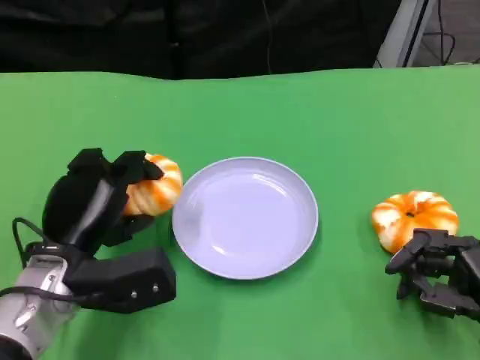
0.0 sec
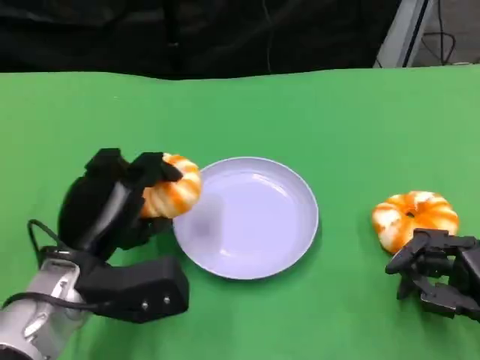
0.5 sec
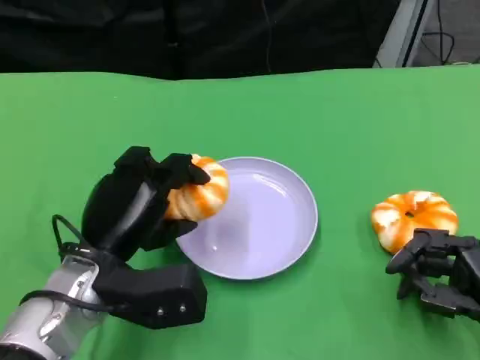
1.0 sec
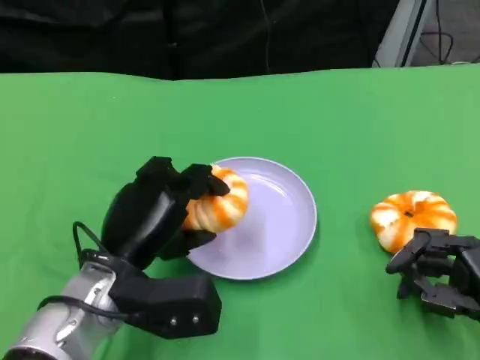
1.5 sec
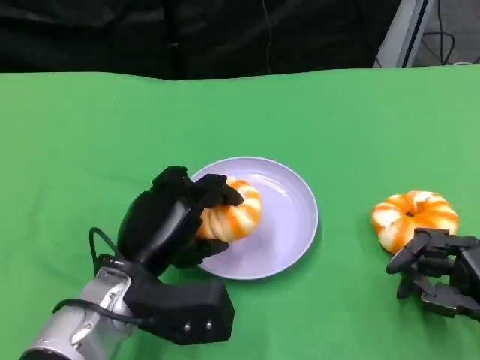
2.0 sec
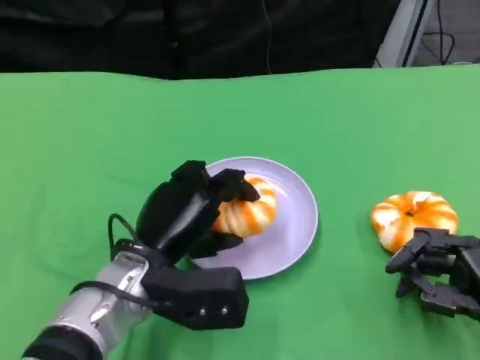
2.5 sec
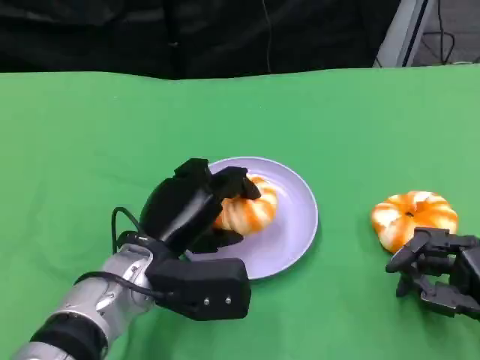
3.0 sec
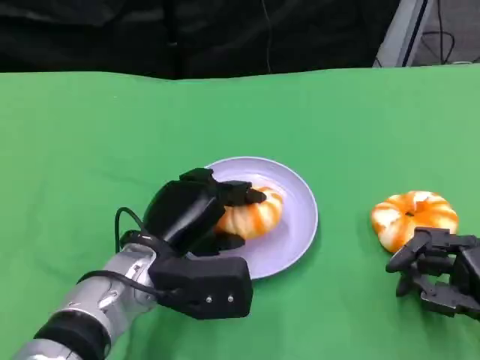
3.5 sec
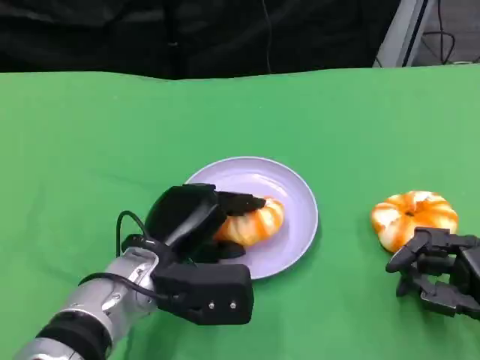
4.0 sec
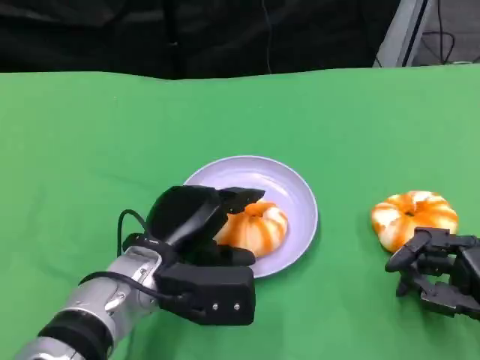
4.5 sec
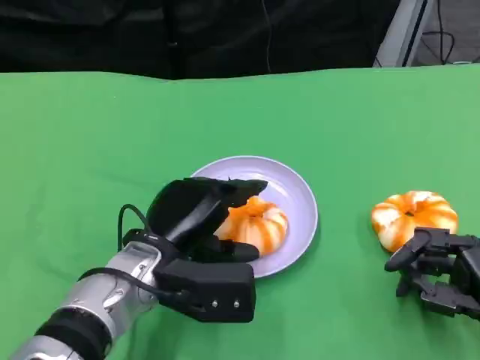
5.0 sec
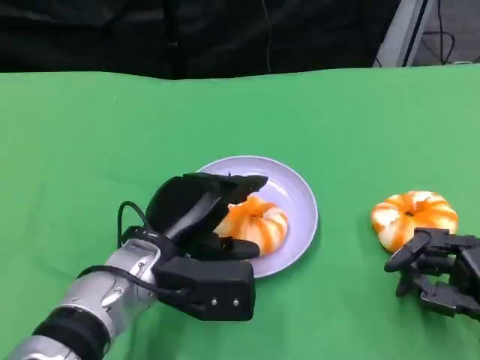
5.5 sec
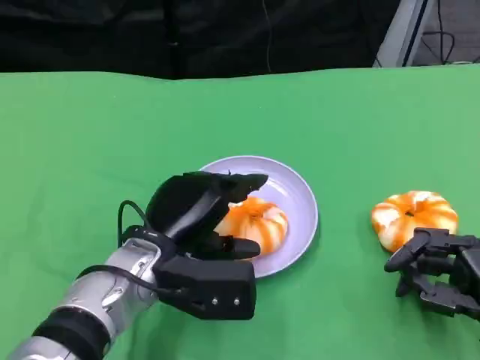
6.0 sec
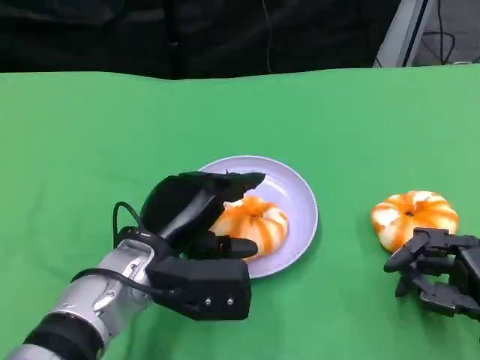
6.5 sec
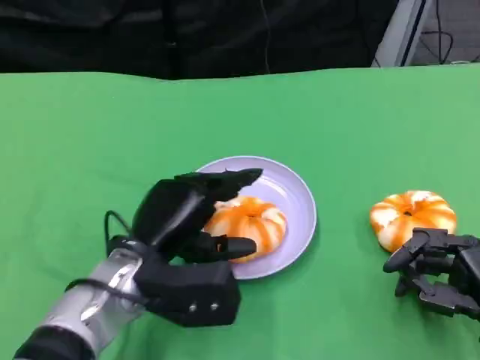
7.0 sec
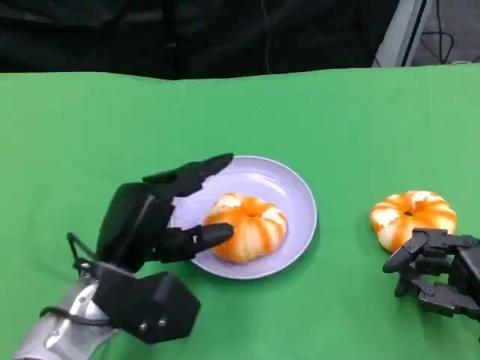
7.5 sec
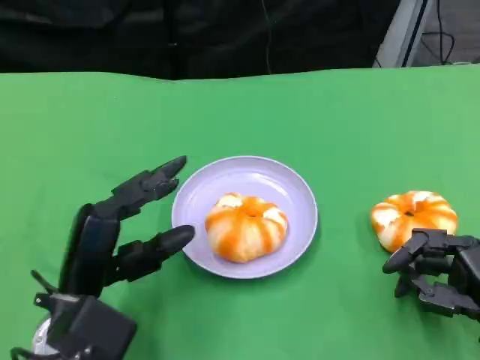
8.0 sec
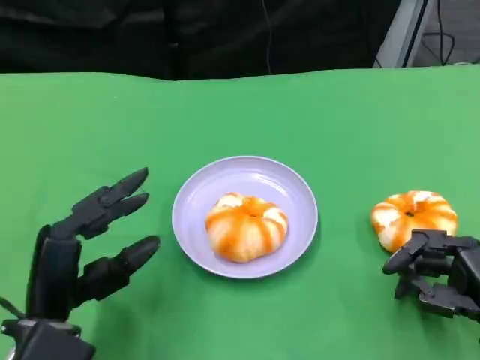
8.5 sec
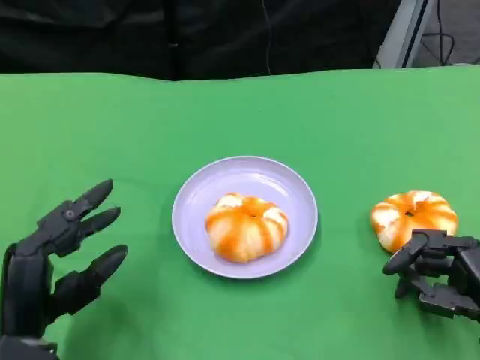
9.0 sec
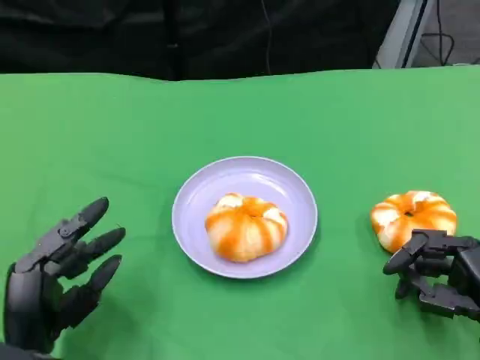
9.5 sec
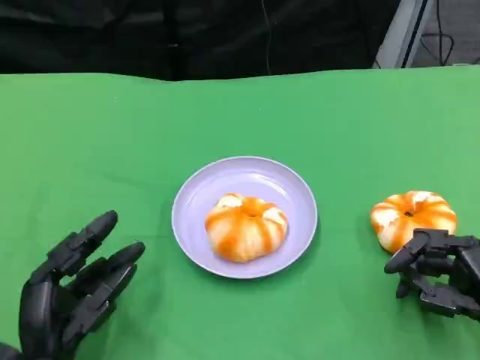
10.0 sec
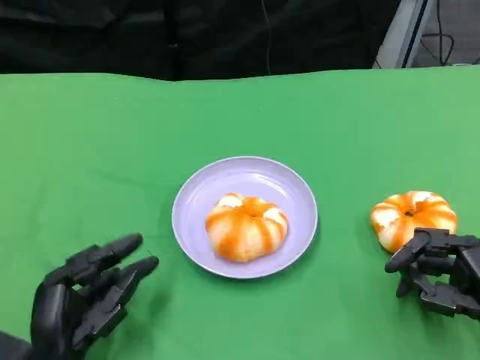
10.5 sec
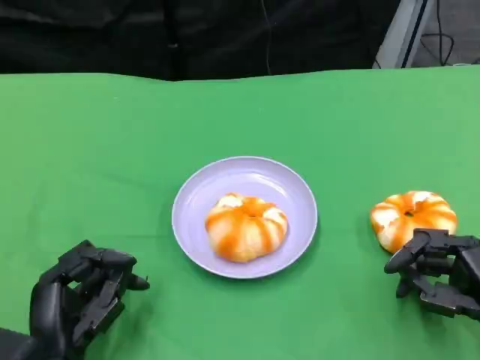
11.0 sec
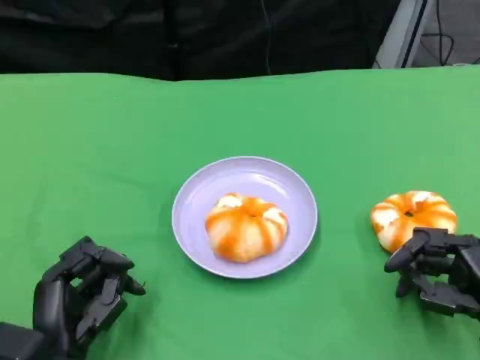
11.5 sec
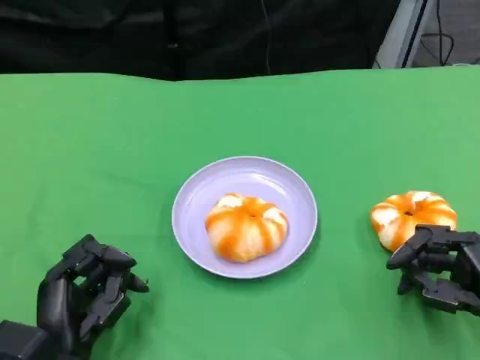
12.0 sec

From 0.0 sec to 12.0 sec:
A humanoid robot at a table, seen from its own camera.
Task of the whole recording: Grasp the bread from the table and place it into the plate.
From 0.0 sec to 2.0 sec: The left hand moves to the right, roughly 5 cm.
From 2.0 sec to 4.0 sec: The hands move only a little.
From 4.0 sec to 6.0 sec: The two hands keep their place.
From 6.0 sec to 8.0 sec: The left hand goes about 10 cm to the left and backward.
From 8.0 sec to 10.0 sec: The left hand shifts roughly 5 cm downward.
From 10.0 sec to 12.0 sec: The hands make only small movements.

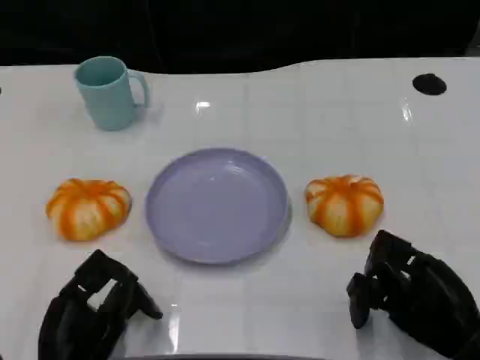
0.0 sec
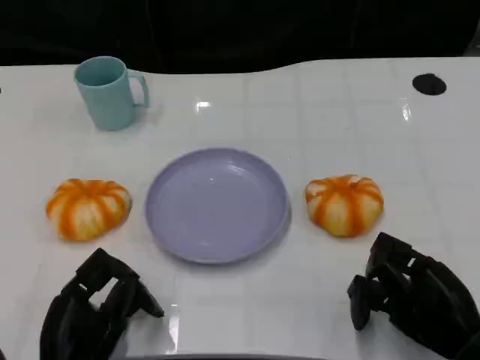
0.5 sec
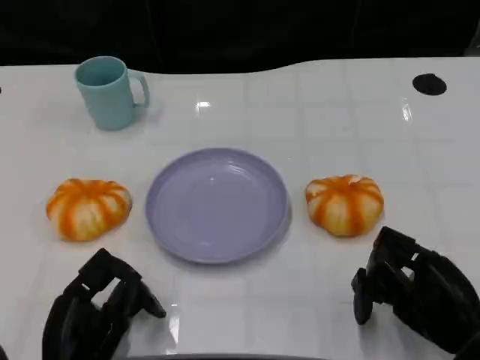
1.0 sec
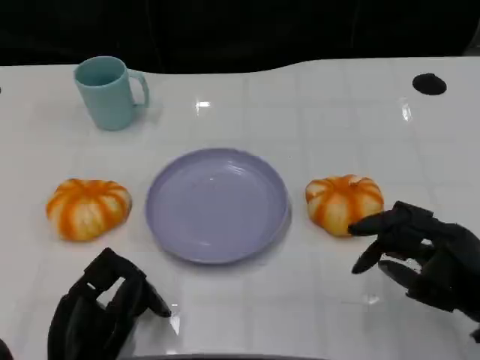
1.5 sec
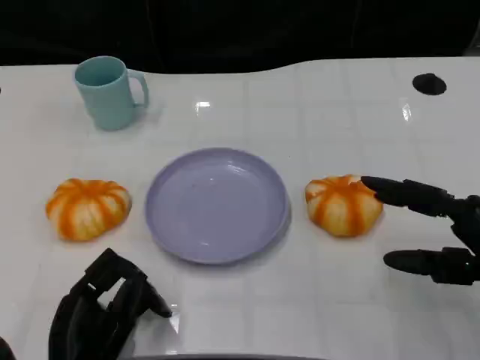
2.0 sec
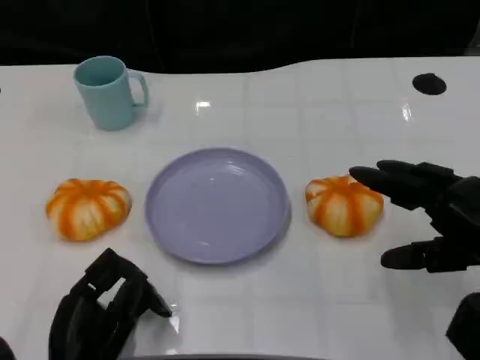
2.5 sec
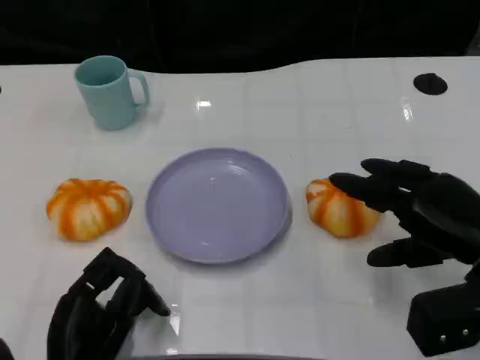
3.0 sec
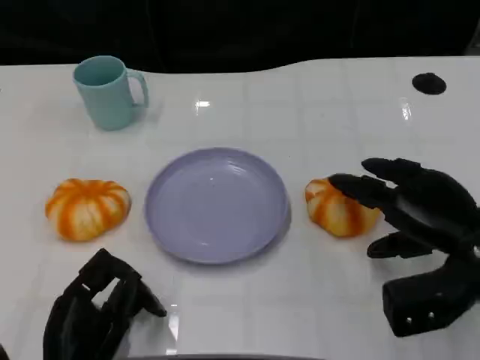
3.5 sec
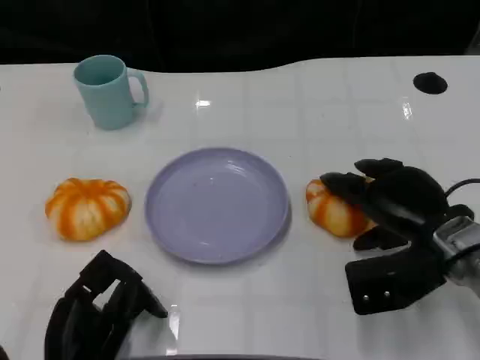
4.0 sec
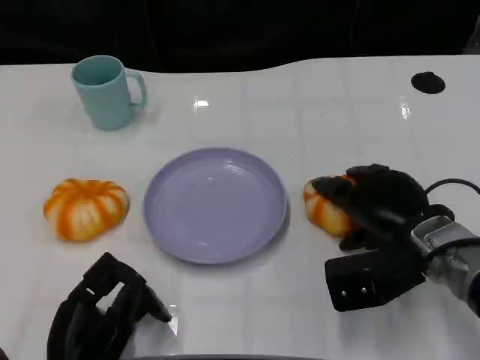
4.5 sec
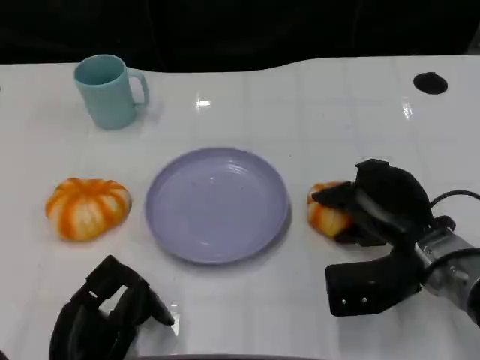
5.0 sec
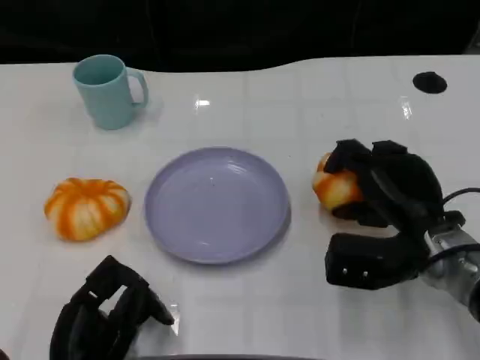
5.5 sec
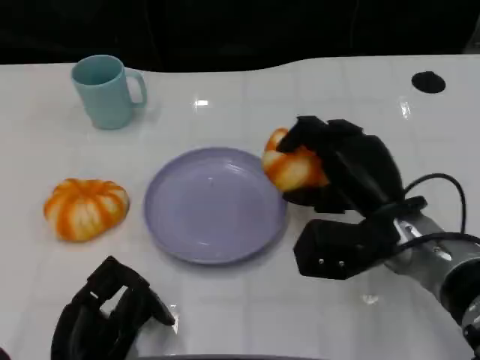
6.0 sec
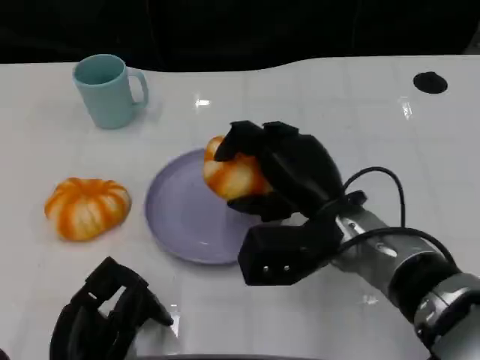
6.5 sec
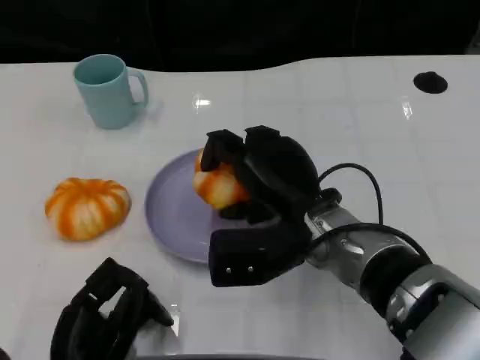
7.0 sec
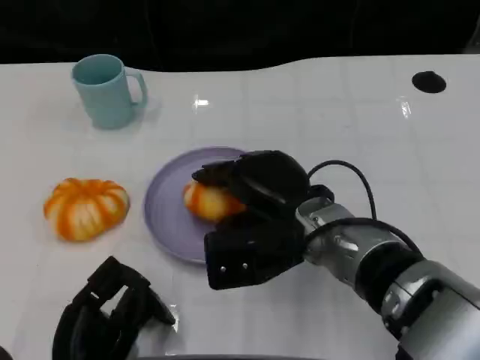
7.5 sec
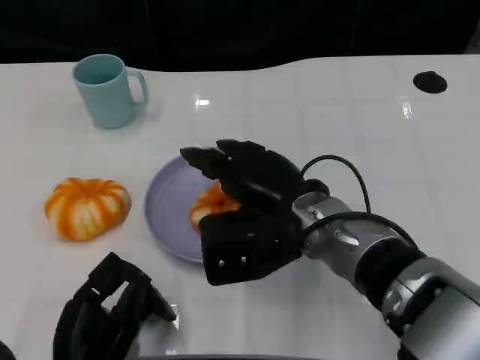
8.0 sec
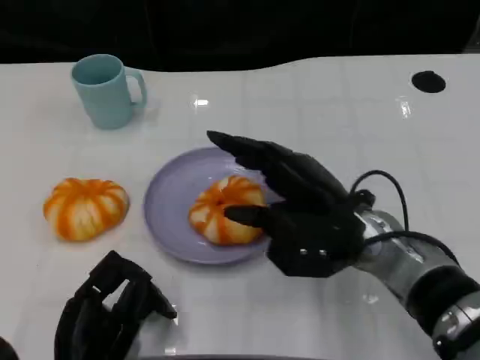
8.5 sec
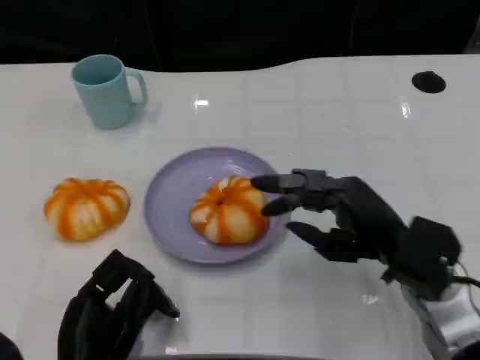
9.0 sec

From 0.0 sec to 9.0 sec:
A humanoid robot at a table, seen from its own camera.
Task of the whole recording: Grasp the bread from the table and place it into the plate.
From 0.0 sec to 2.0 sec: The right hand moves upward, about 5 cm.
From 2.0 sec to 4.5 sec: The right hand travels to the left and forward by some 10 cm.
From 4.5 sec to 7.0 sec: The right hand shifts some 10 cm to the left.
From 7.0 sec to 9.0 sec: The right hand goes approximately 10 cm to the right.

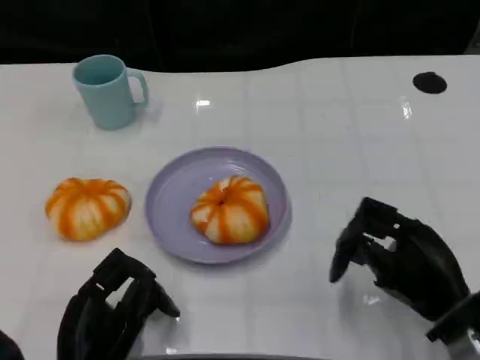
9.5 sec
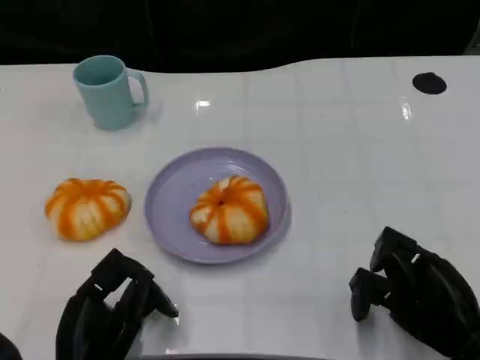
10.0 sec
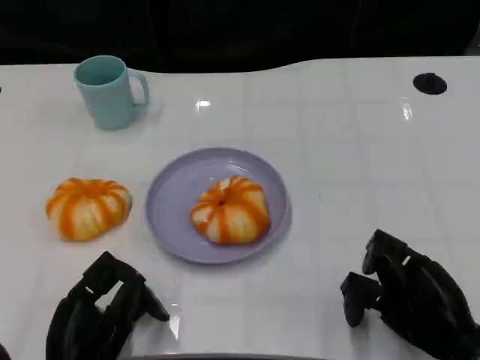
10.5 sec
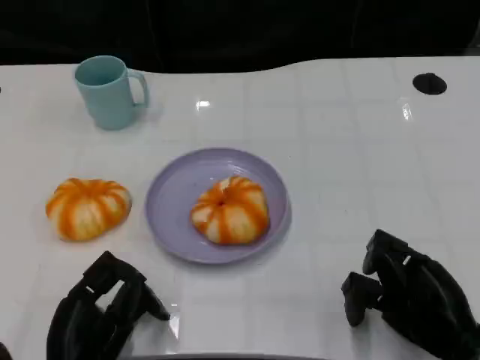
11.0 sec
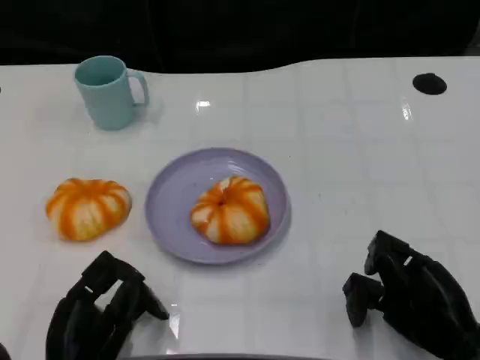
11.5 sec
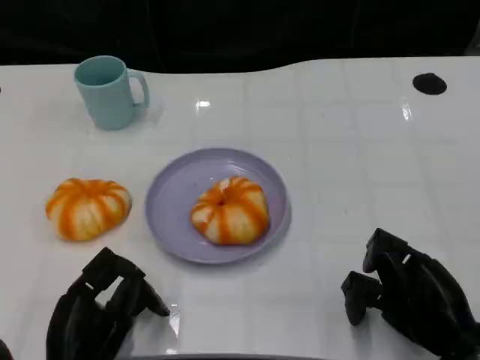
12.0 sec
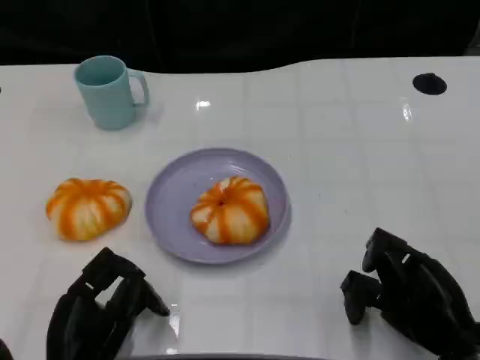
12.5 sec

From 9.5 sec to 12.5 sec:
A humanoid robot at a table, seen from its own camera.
Task of the whole recording: Grasp the bread from the table and place it into the plate.
From 9.5 sec to 11.0 sec: The hands make only small movements.
From 11.0 sec to 12.5 sec: Both hands stay put.

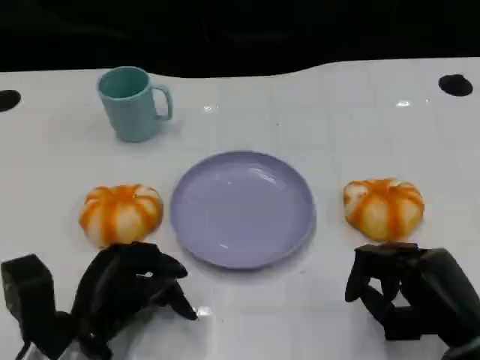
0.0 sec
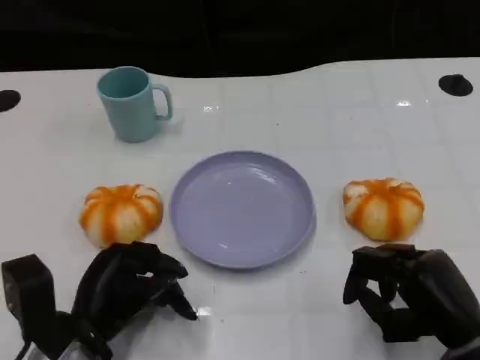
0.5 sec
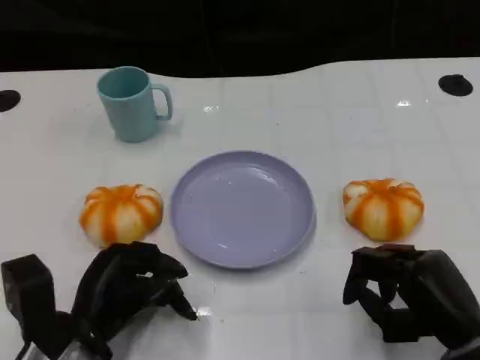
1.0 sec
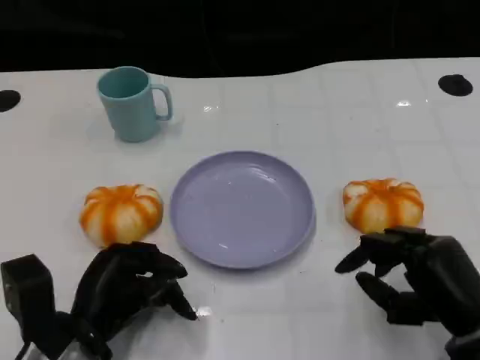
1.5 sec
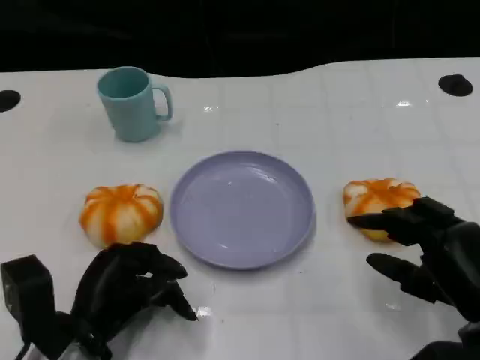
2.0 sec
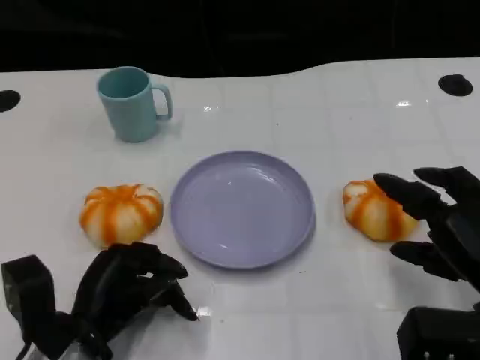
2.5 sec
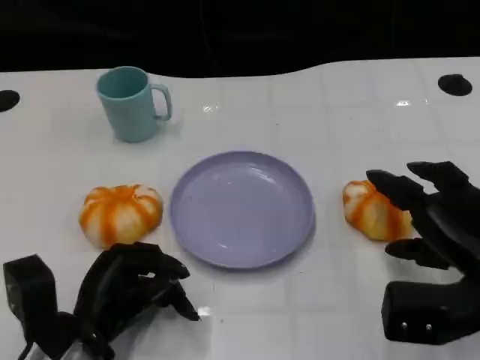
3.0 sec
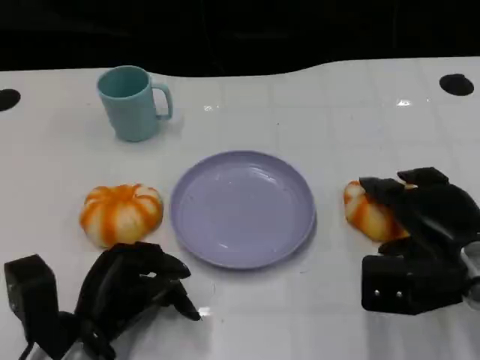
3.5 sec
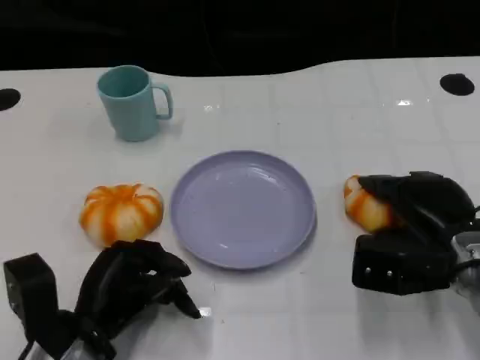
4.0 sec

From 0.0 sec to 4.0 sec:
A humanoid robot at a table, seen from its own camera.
Task of the whole recording: Grasp the bread from the table and place it into the plate.
From 0.0 sec to 2.0 sec: The hands stay close to where they were, moving slightly.
From 2.0 sec to 4.0 sec: The right hand goes some 10 cm forward.
